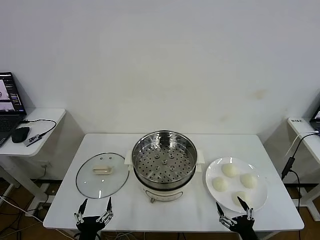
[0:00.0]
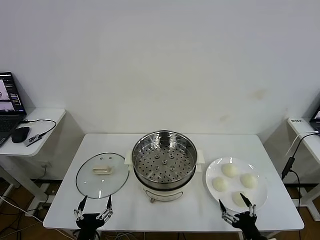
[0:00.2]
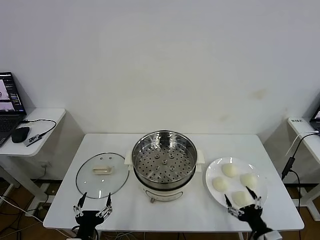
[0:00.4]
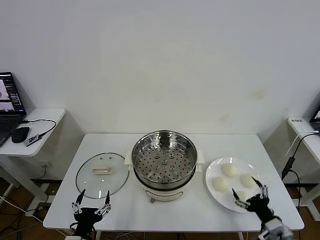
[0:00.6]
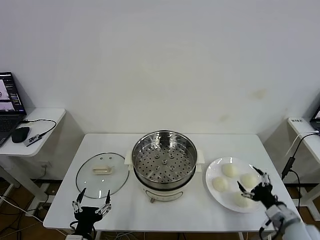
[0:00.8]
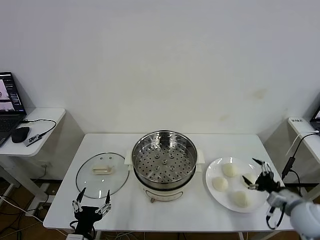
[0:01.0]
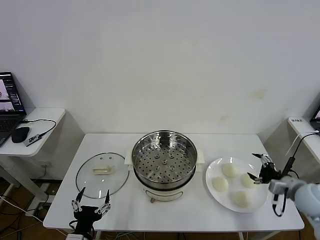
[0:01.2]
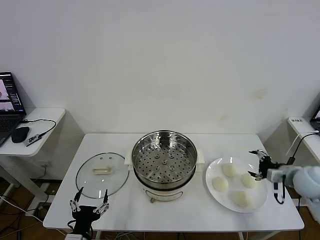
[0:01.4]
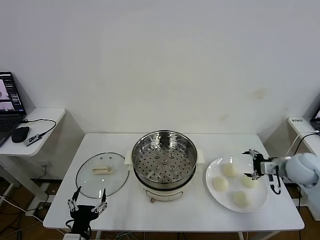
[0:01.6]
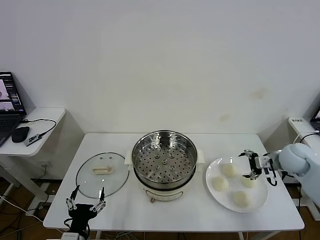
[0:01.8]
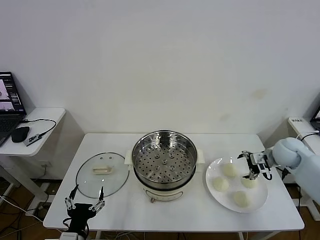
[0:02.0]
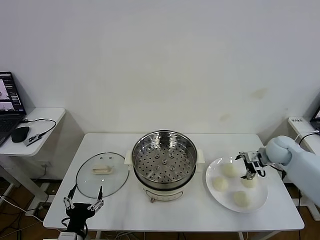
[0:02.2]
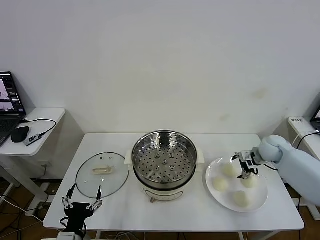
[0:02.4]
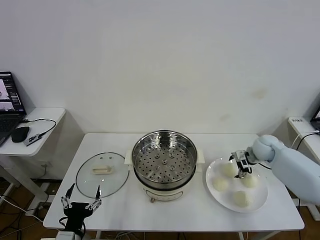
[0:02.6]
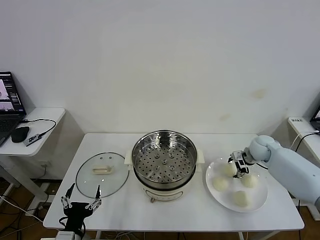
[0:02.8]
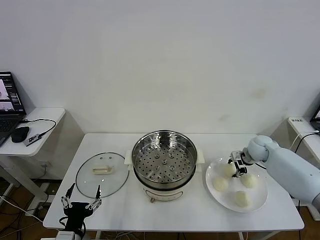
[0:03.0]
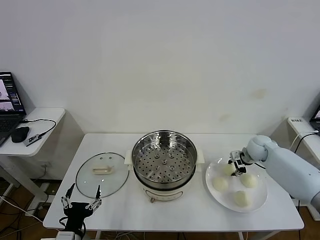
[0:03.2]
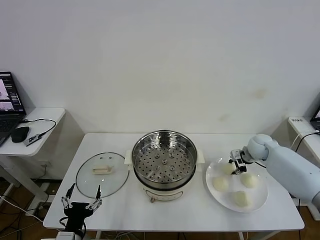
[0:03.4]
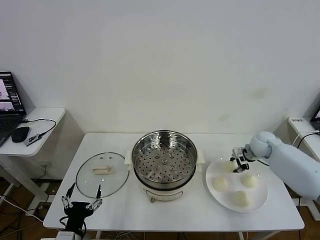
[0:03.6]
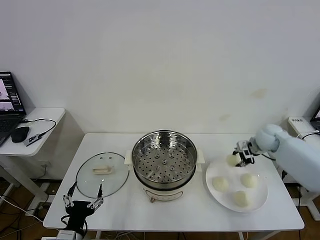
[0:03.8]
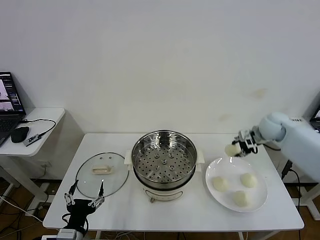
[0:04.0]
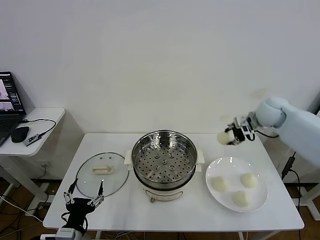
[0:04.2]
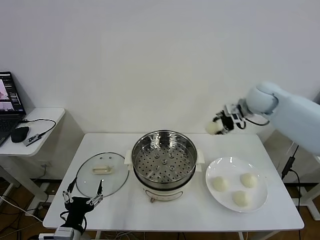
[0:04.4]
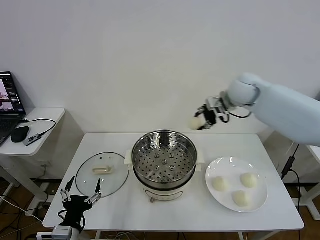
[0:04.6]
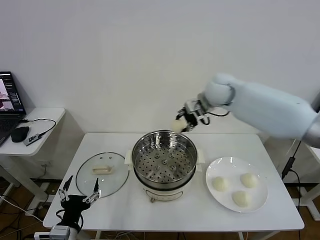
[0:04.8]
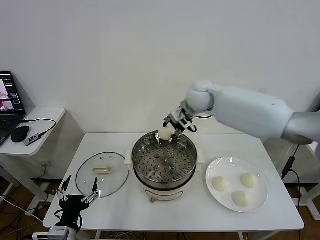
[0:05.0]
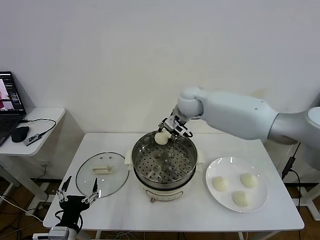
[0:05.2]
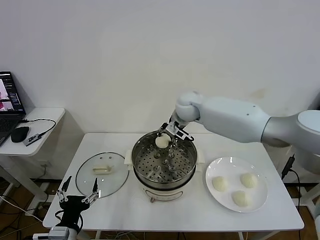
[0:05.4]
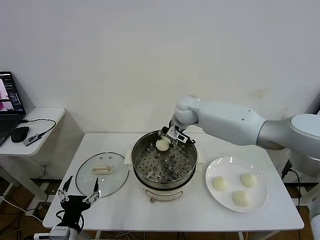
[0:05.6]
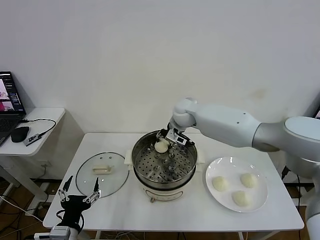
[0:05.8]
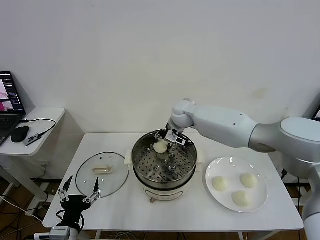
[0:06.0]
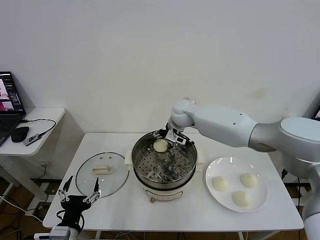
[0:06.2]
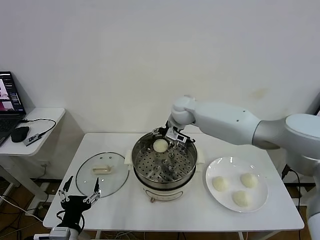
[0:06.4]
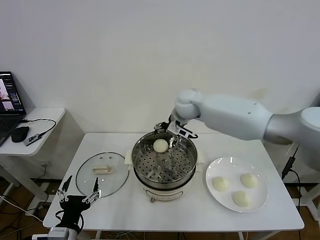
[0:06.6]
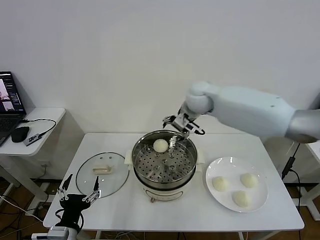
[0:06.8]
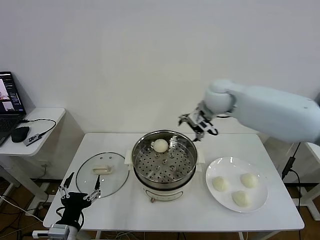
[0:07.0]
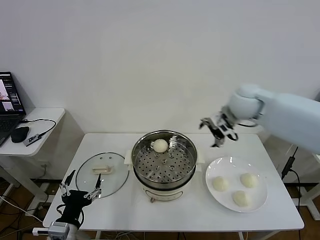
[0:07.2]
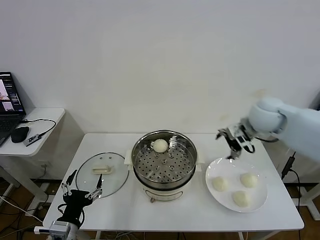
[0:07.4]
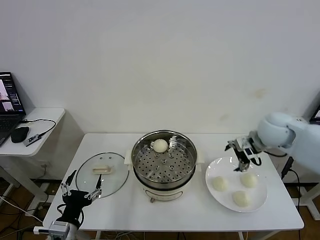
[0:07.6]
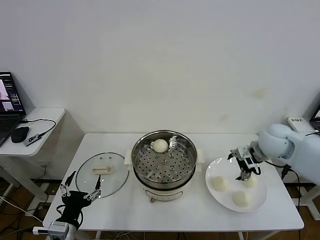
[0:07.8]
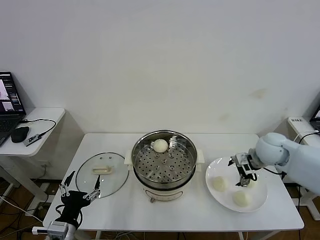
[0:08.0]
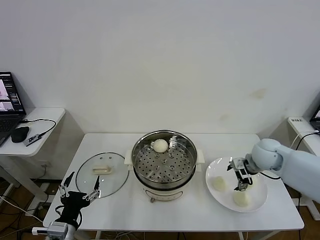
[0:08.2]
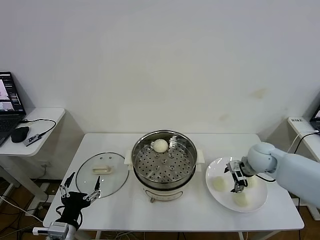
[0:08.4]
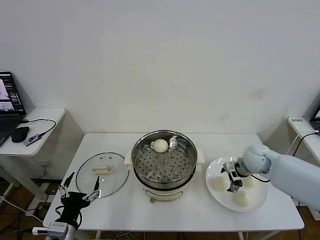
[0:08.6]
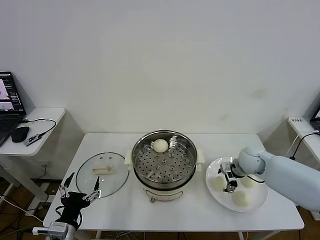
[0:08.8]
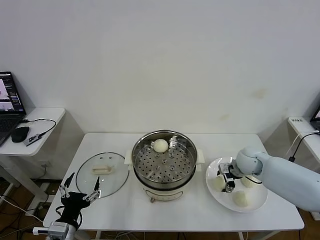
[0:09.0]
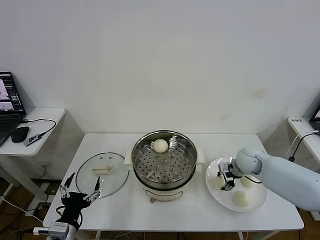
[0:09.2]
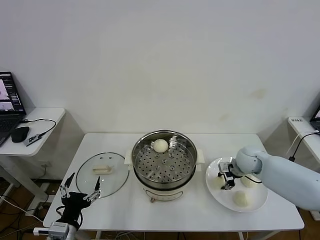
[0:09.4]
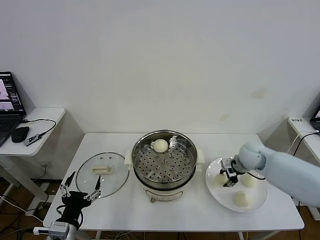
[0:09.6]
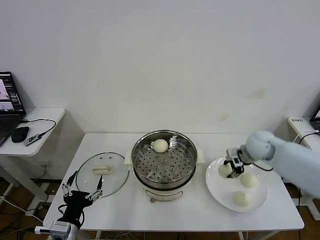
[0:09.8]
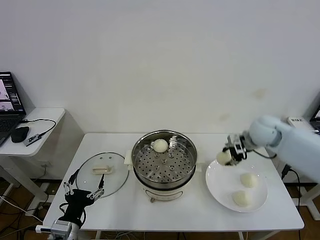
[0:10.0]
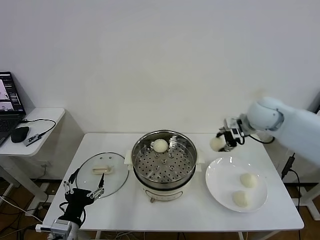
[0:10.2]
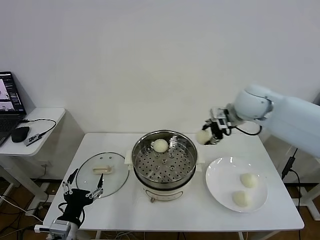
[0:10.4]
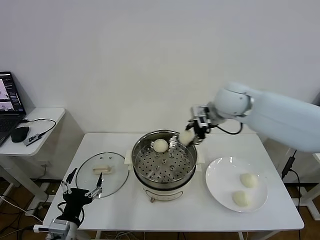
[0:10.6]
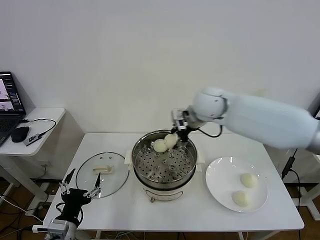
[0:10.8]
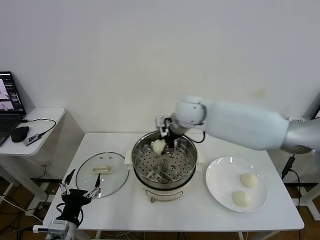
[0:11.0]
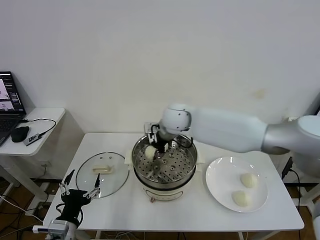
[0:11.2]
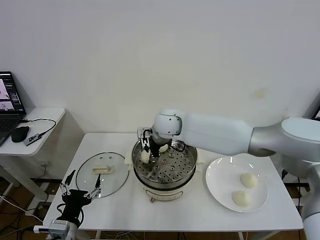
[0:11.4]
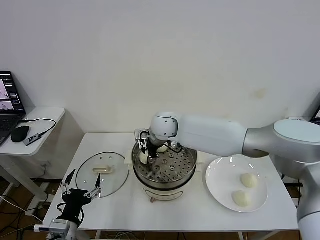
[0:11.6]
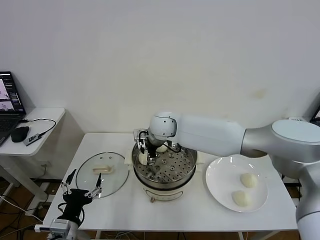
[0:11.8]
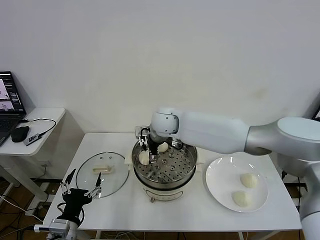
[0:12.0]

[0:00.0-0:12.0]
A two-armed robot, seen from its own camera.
Task of the whole recording: take steamed baozi put them in steamer then cover it.
Step, 0:00.0 to 0:03.0: Grasp the baozi in the plate with right gripper.
Step, 0:03.2 to 0:06.2: Place the baozi on the steamer with right gripper.
Step, 0:06.4 to 0:09.4: Grasp the baozi in the plate with right gripper.
Step, 0:09.6 to 0:11.8: Place the baozi on the steamer with right gripper.
0:01.6 to 0:03.0: The right gripper is displaced forward, downward and to the left by some 15 cm, and closes.
0:03.0 to 0:04.4: The right gripper goes approximately 25 cm upward and to the left.
0:04.4 to 0:06.0: The right gripper goes roughly 20 cm to the left and downward, and opens.
0:06.0 to 0:07.6: The right gripper goes roughly 30 cm to the right and backward, and opens its fingers.
0:07.6 to 0:09.0: The right gripper shifts roughly 15 cm downward, and closes.
0:09.0 to 0:10.4: The right gripper goes about 25 cm upward and to the left, and closes its fingers.
0:10.4 to 0:12.0: The right gripper shifts about 20 cm to the left, and opens up.

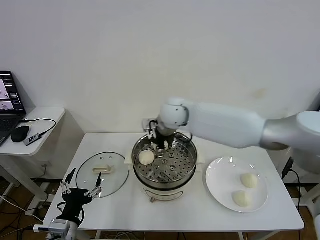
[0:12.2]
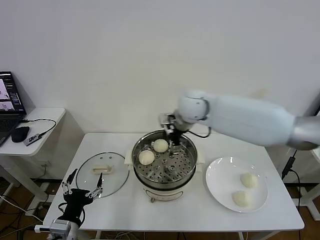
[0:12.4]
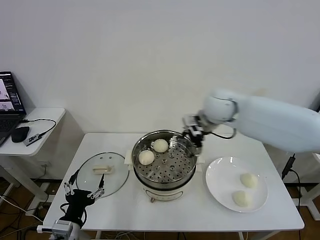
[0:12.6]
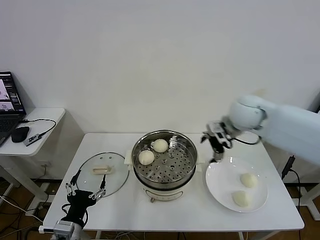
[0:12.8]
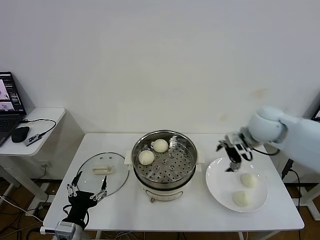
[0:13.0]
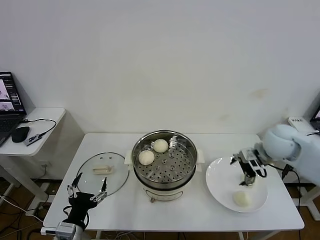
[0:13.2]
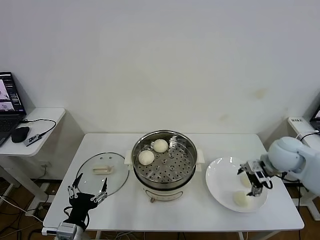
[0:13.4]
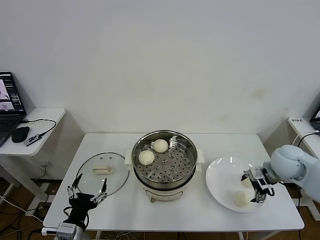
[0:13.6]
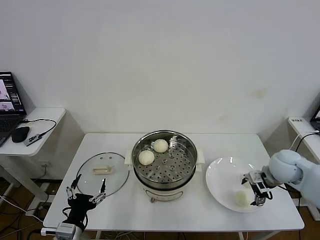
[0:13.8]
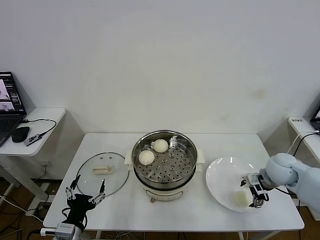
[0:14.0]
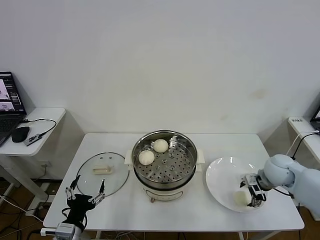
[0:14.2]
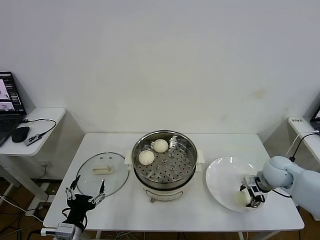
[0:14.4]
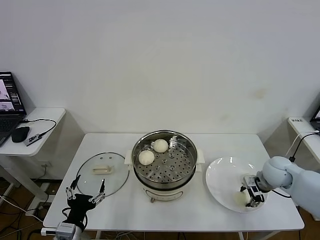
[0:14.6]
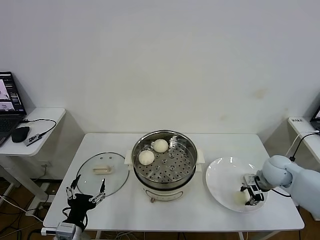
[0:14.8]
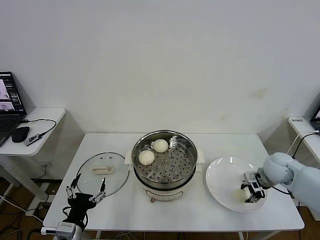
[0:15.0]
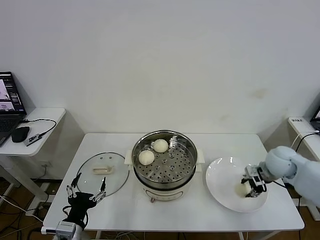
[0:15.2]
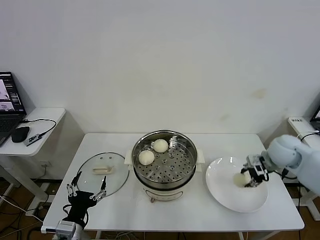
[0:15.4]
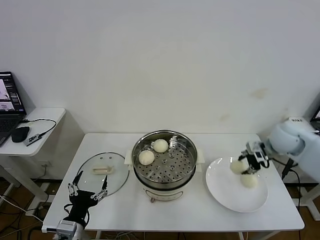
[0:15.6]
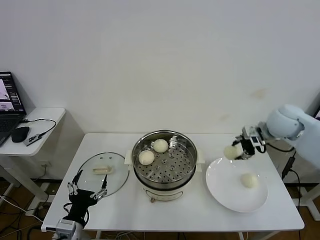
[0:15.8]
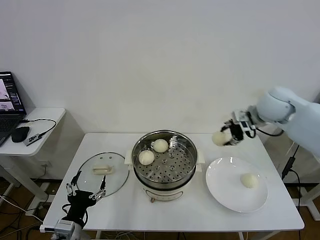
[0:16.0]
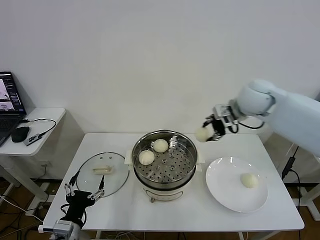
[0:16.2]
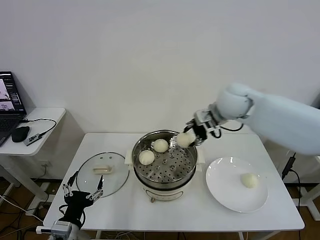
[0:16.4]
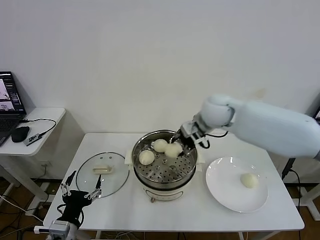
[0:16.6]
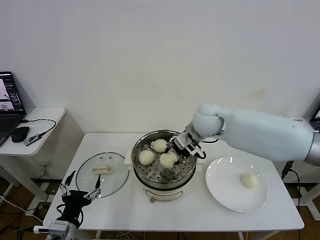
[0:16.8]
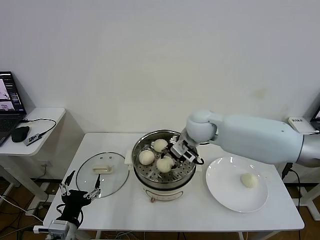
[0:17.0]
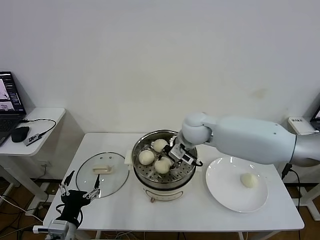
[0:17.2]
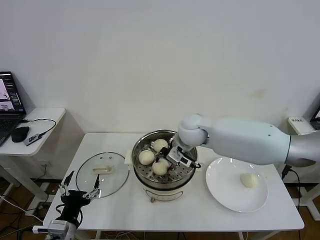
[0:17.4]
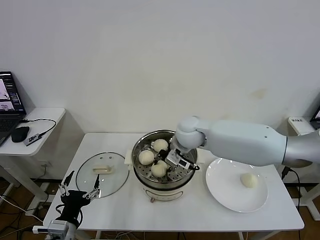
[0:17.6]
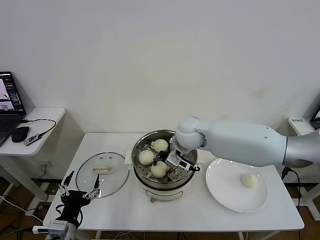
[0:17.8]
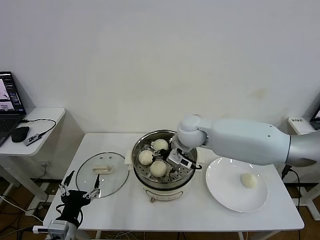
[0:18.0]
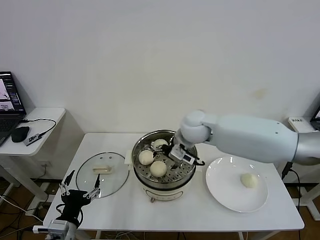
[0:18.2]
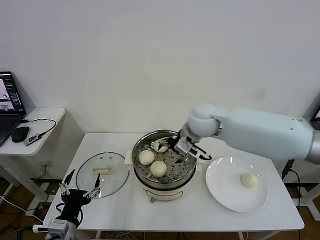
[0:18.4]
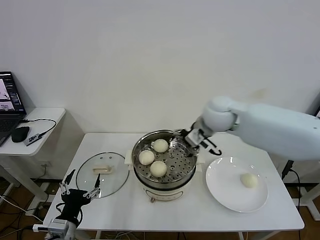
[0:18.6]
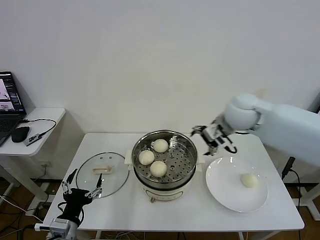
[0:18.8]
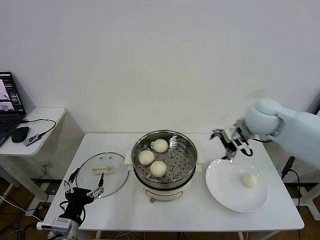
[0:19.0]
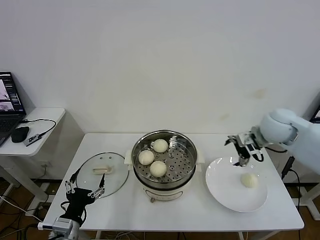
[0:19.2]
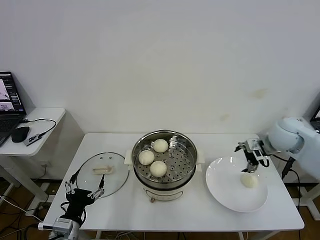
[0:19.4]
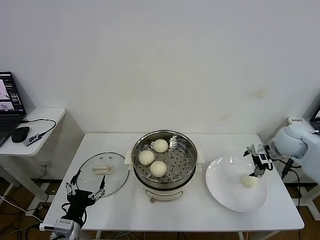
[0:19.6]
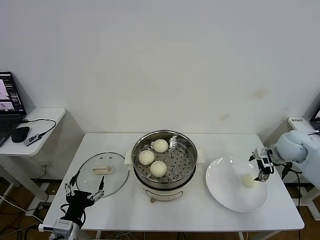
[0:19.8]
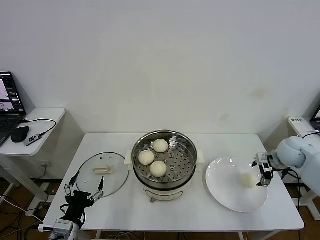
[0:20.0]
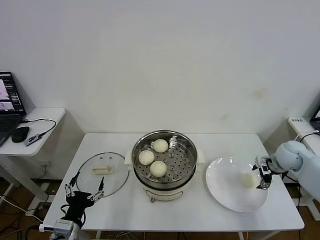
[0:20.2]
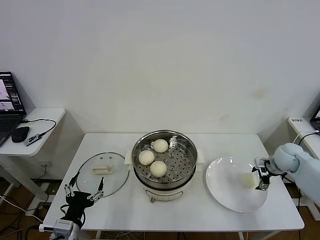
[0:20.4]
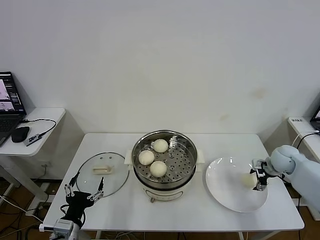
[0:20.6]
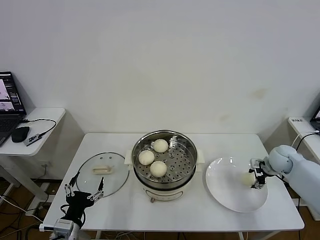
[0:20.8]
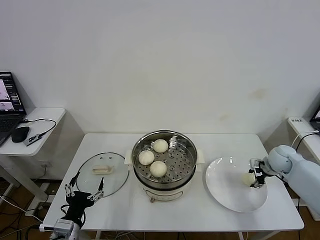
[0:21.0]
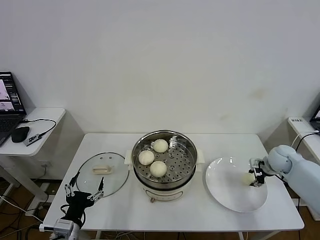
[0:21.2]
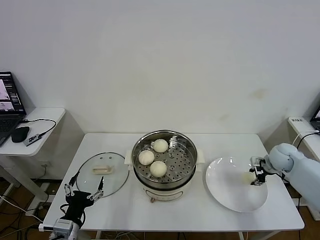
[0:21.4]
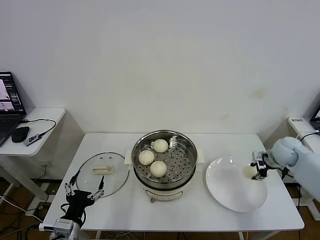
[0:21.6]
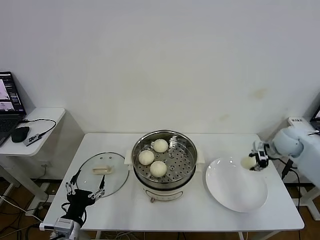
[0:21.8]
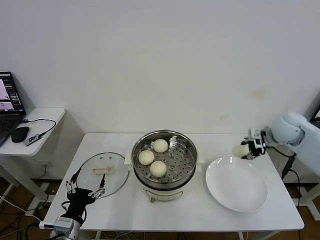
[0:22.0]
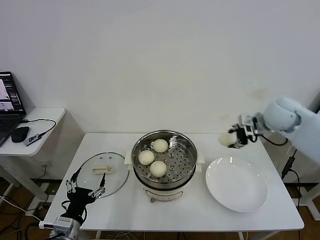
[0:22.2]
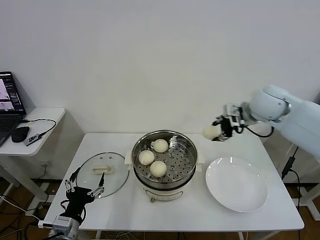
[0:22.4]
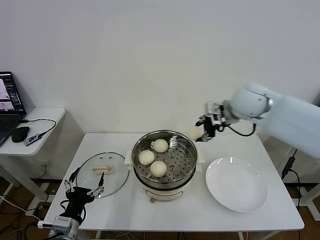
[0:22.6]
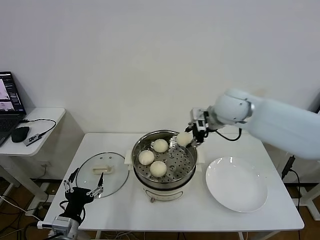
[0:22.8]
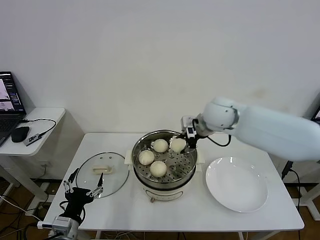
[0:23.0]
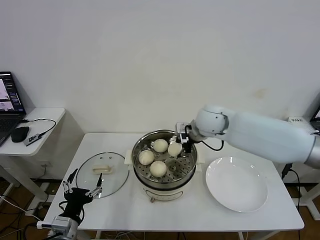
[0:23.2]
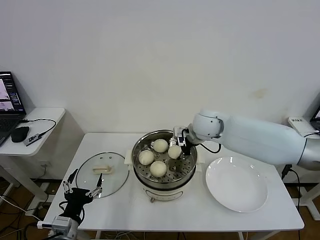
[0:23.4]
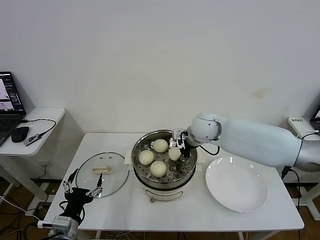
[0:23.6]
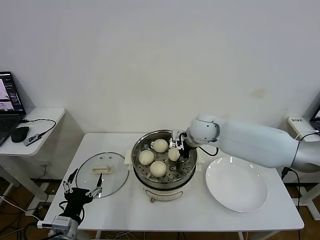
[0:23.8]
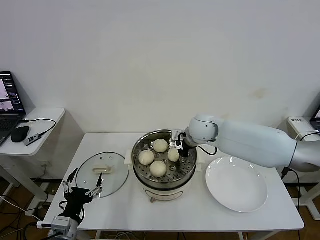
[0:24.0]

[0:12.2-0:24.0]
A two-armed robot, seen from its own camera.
Task of the whole recording: take steamed baozi put them in steamer then cover it.
Step, 0:12.2 to 0:14.6: Grasp the baozi in the plate with right gripper.
Step, 0:15.0 to 0:18.0: Place the baozi on the steamer with right gripper.
Step, 0:18.2 to 0:21.0: Grasp the baozi in the plate with right gripper.
0:12.2 to 0:13.6: The right gripper travels to the right by approximately 30 cm.
0:13.6 to 0:15.2: The right gripper closes its fingers.
0:15.2 to 0:16.6: The right gripper shifts approximately 25 cm to the left and upward.
0:16.6 to 0:18.2: The right gripper travels to the left by approximately 5 cm, and opens up.
0:18.2 to 0:19.6: The right gripper goes roughly 30 cm to the right.
0:19.6 to 0:21.0: The right gripper moves downward, some 10 cm, and closes up.
0:21.0 to 0:22.6: The right gripper travels upward and to the left by roughly 30 cm.
0:22.6 to 0:24.0: The right gripper shifts about 15 cm downward and to the left, and opens up.
